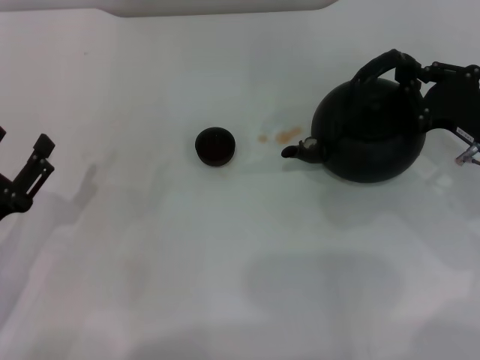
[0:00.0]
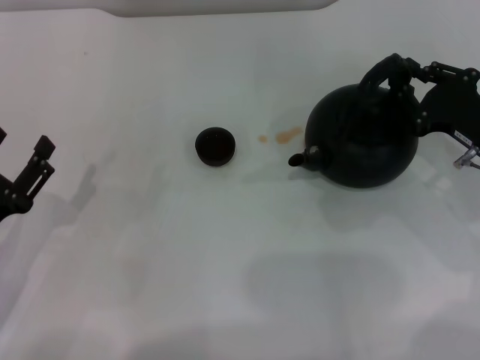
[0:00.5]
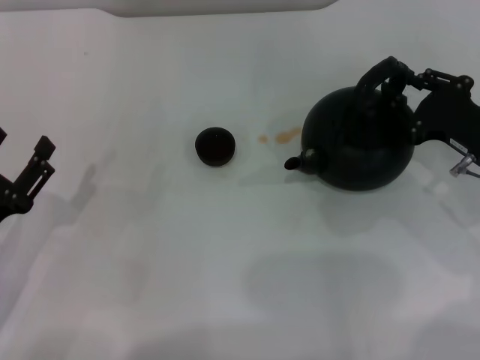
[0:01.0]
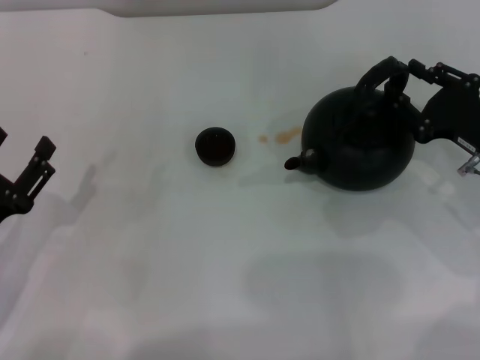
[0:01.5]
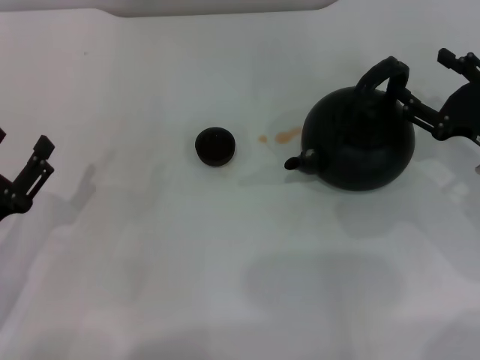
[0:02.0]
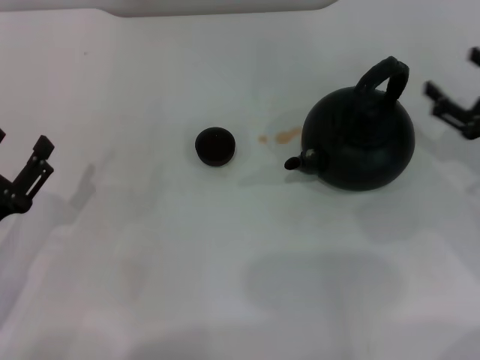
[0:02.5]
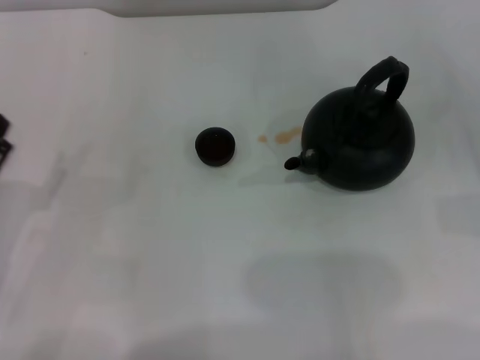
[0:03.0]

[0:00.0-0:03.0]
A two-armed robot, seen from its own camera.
Task of the whole recording: Grasp the handle of the teapot with one hand and pour tea into the teacup.
0:00.0 to 0:01.5: The right gripper opens up.
0:01.5 to 0:03.0: The right gripper goes approximately 10 cm to the right, and opens.
